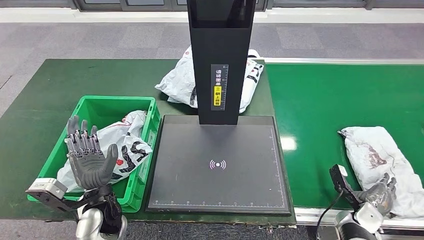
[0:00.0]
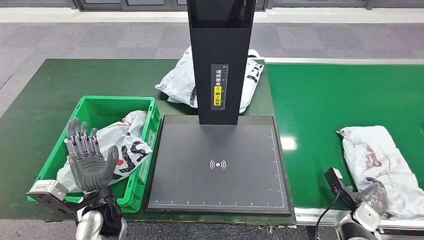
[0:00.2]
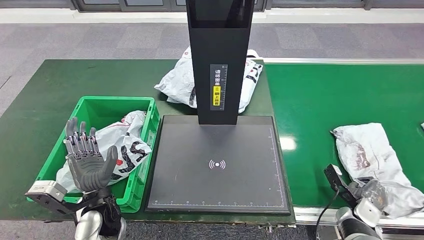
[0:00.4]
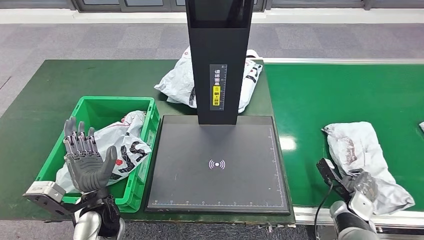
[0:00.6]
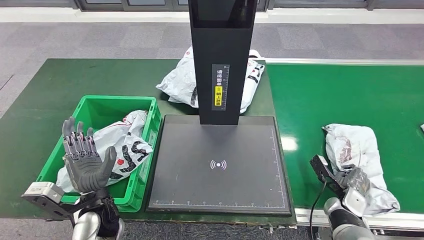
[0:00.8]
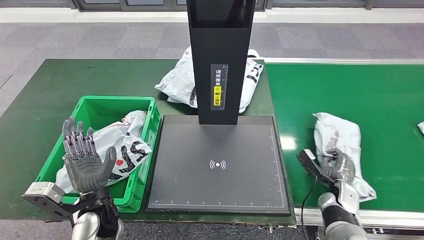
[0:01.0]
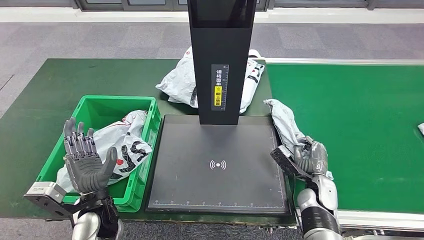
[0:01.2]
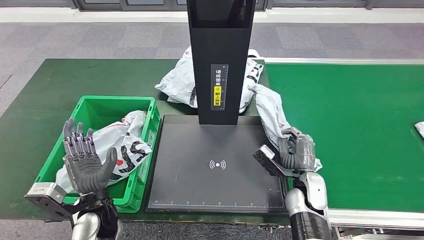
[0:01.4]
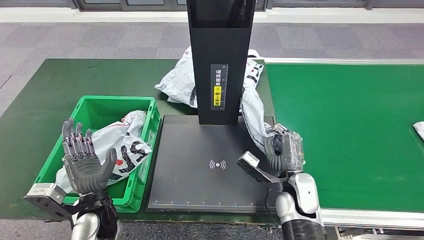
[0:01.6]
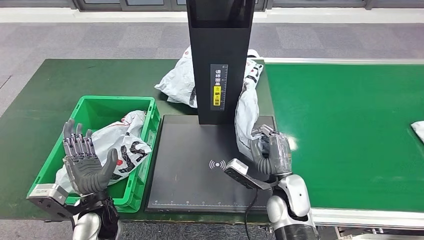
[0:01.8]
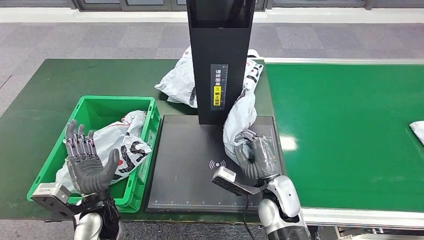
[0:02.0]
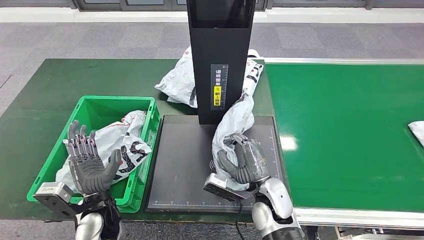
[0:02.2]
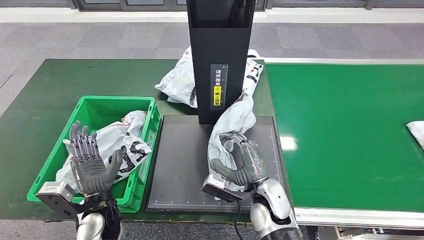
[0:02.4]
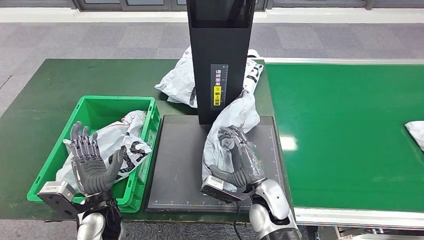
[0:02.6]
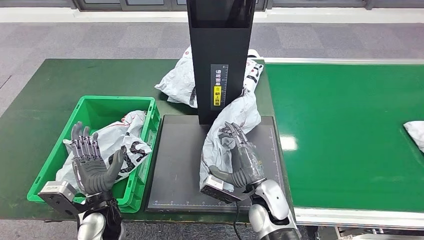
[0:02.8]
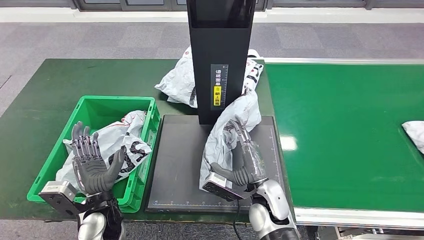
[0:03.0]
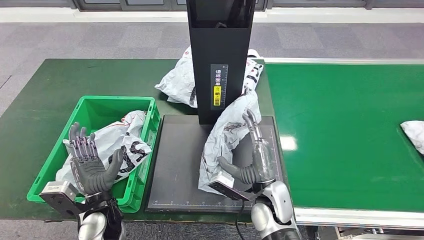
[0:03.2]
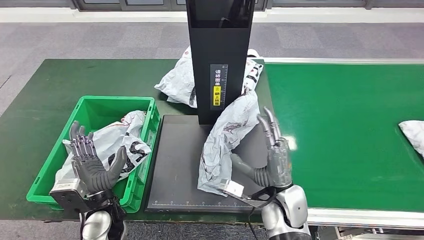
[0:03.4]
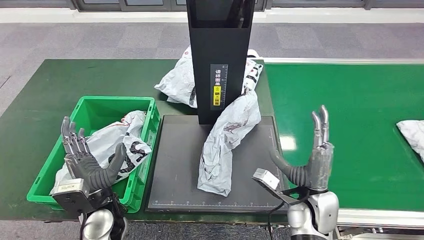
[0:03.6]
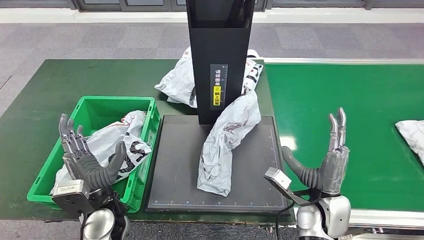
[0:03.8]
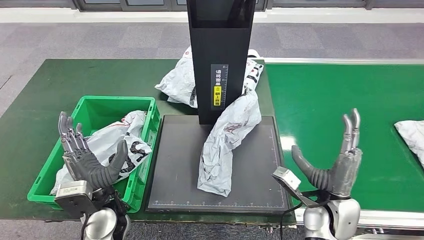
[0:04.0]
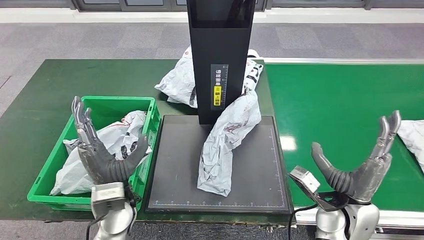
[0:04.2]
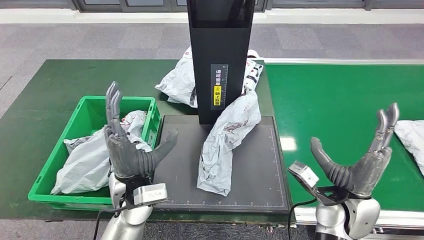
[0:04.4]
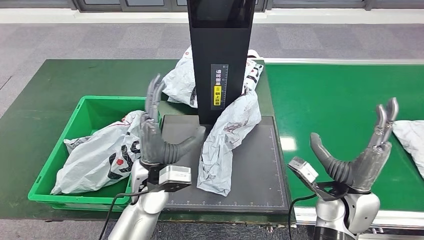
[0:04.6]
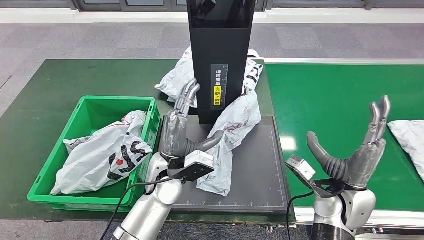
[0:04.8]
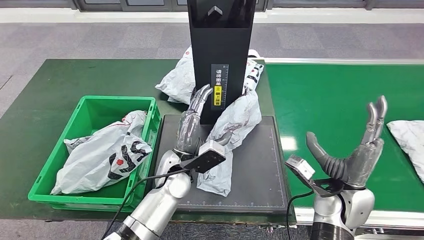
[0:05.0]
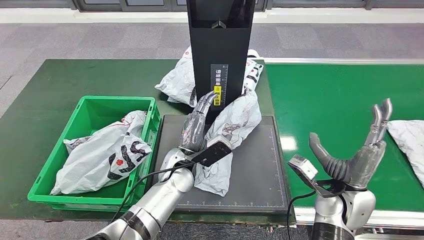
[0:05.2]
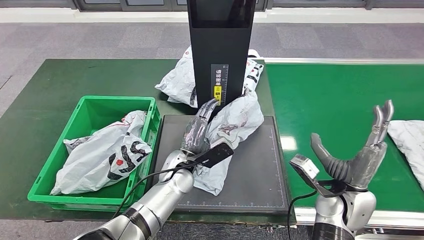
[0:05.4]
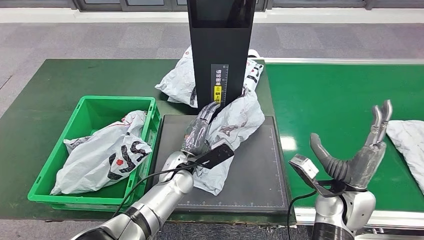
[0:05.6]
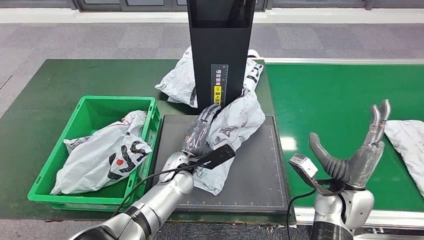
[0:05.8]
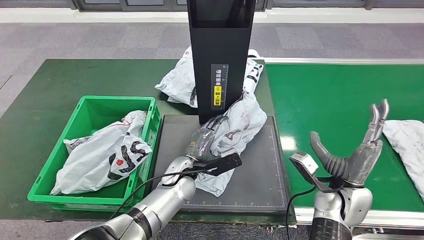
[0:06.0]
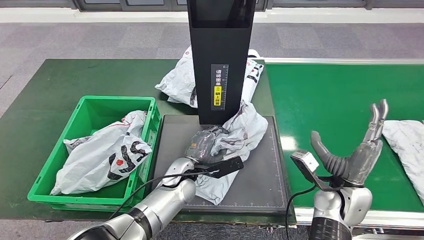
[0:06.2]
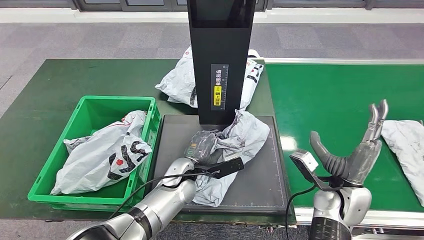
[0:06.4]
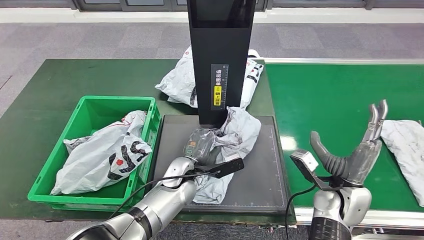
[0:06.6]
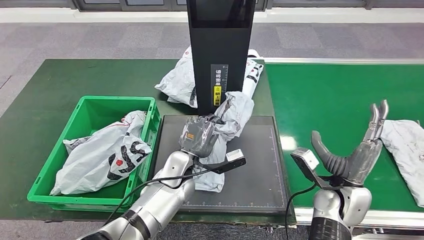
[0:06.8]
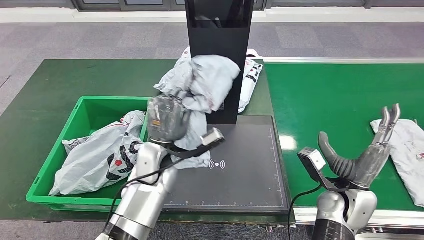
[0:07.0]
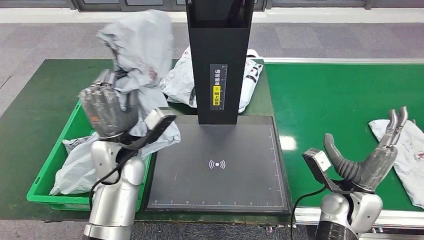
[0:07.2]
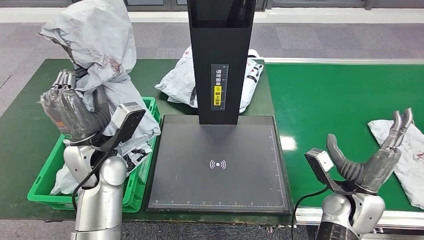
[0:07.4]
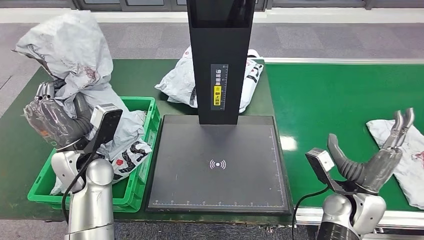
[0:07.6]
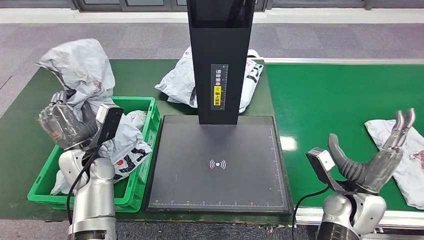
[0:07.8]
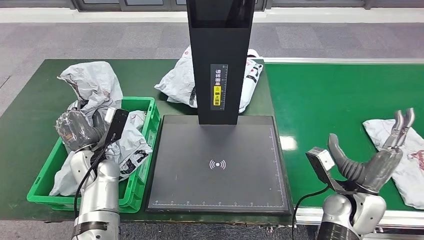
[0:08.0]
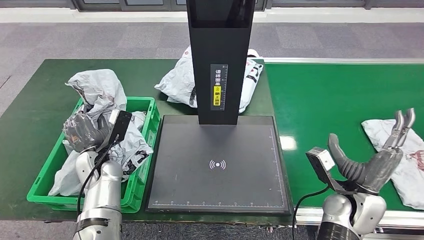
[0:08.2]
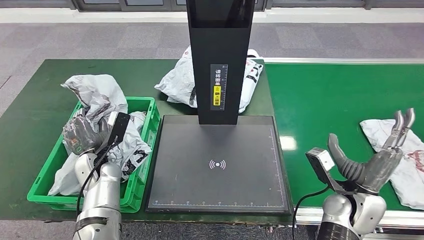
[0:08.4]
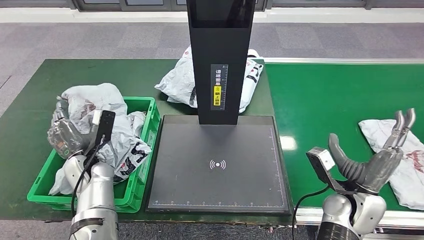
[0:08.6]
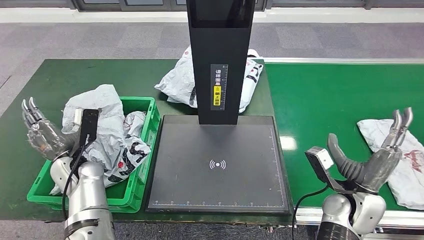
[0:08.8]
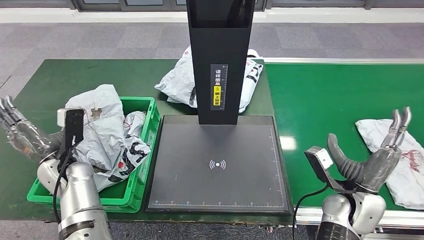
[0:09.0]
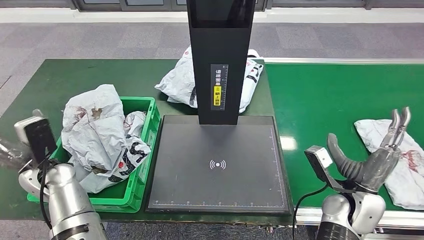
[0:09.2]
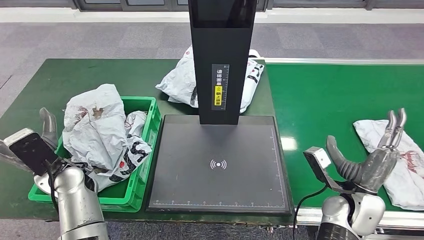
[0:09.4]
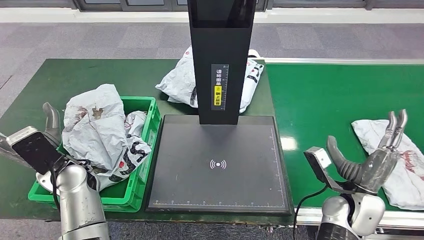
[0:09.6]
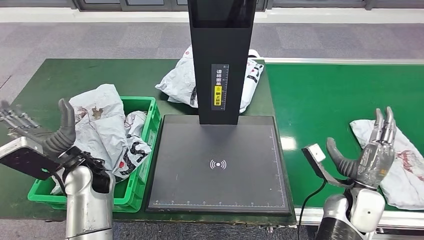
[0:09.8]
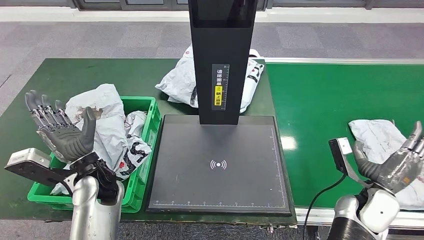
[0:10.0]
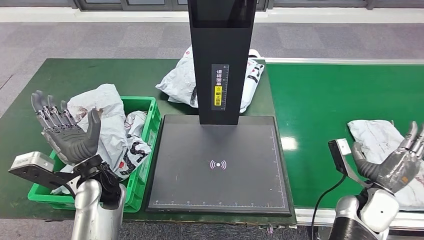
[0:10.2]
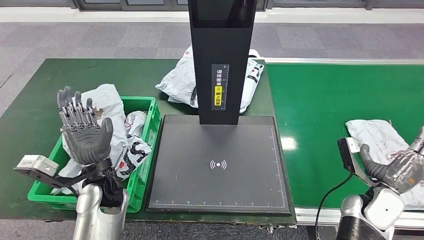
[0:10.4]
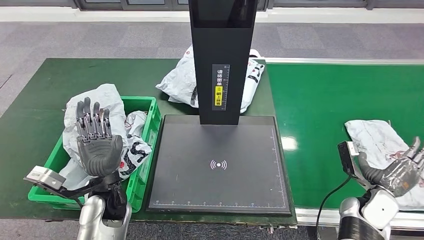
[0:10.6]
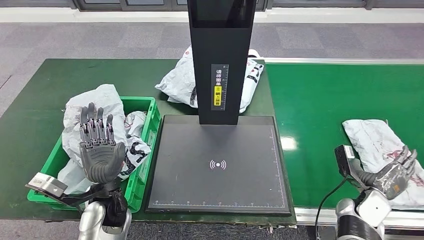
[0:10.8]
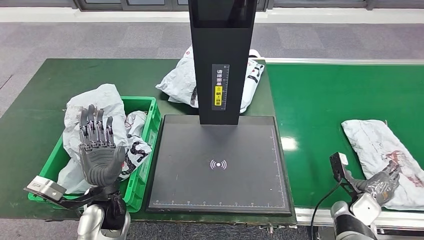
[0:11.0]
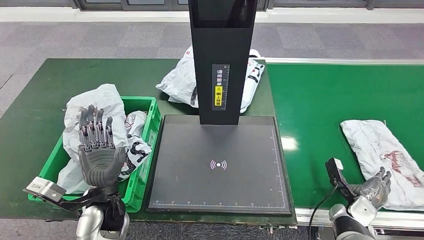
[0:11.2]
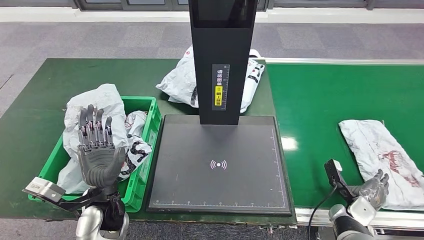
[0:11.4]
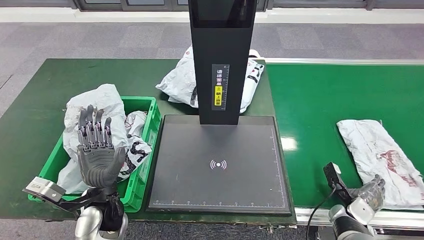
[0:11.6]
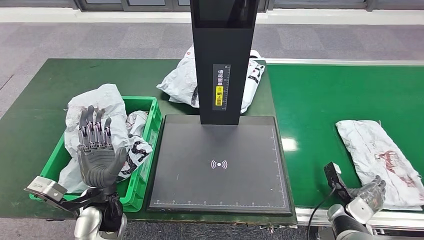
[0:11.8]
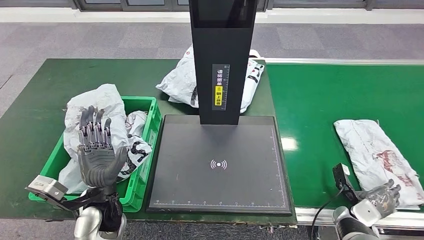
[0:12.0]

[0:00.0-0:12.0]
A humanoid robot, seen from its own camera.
Step, 0:00.0 to 0:01.6: Pick up the parcel from the conveyor belt.
Step, 0:01.8 to 0:04.0: Place the parcel onto the inbound machine.
Step, 0:04.2 to 0:07.4: Pick up the parcel from the inbound machine.
Step, 0:07.8 to 0:09.6: Place the parcel into the delivery box.
0:00.0 to 0:01.6: The right hand is displaced to the left and upward by roughly 25 cm.
0:01.6 to 0:03.0: The right hand travels to the left by some 10 cm.
0:04.4 to 0:06.0: The left hand goes about 15 cm downward, to the right and forward.
0:07.6 to 0:09.0: The left hand moves to the left and downward, roughly 10 cm.
0:10.4 to 0:12.0: The left hand shifts by roughly 5 cm. The right hand heads downward, covering roughly 10 cm.

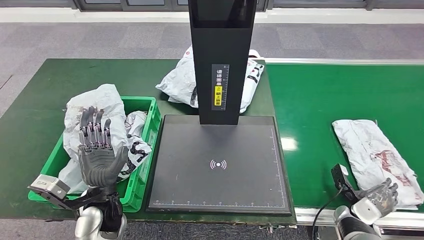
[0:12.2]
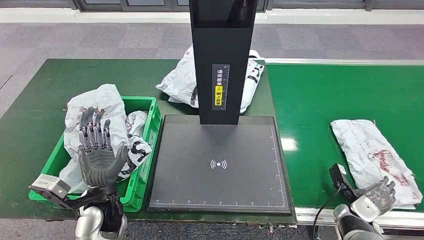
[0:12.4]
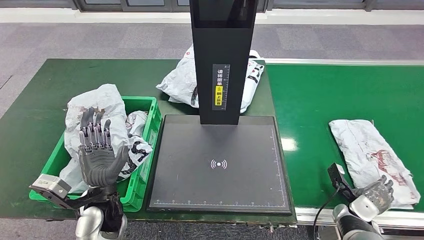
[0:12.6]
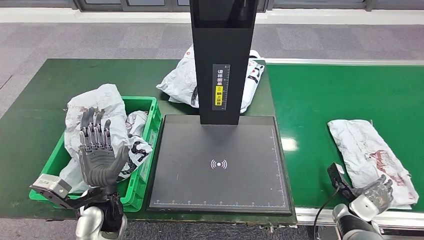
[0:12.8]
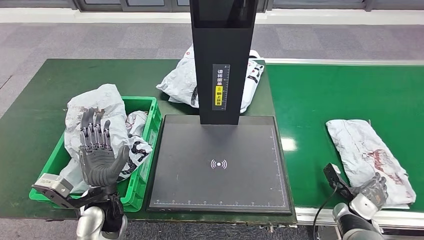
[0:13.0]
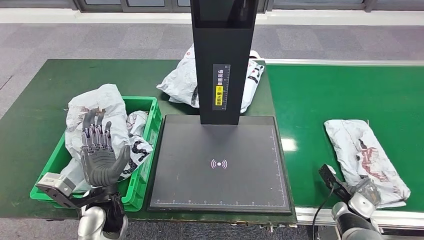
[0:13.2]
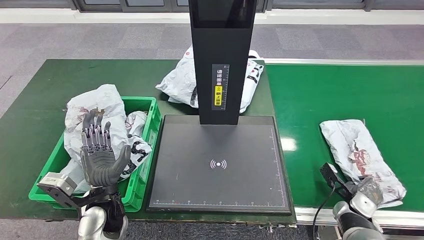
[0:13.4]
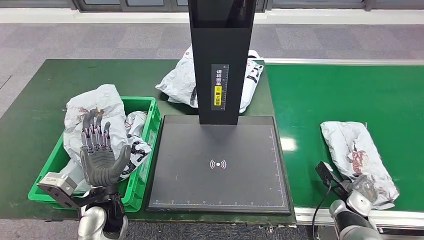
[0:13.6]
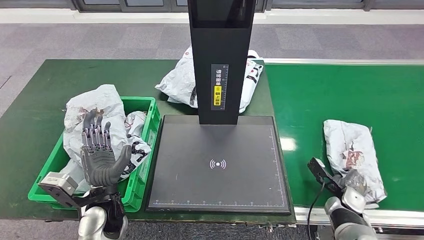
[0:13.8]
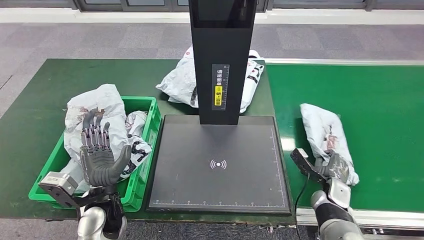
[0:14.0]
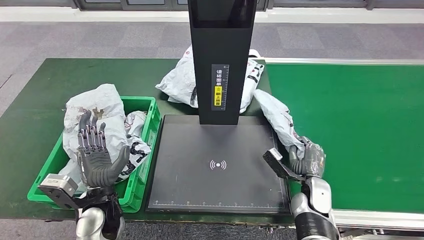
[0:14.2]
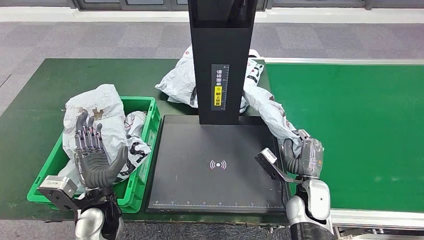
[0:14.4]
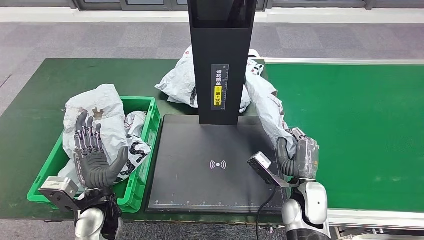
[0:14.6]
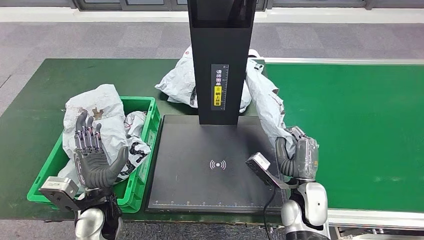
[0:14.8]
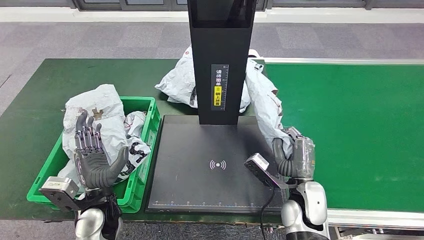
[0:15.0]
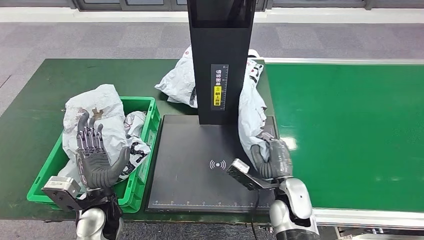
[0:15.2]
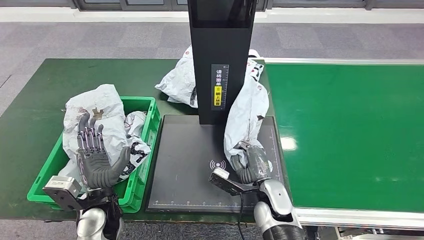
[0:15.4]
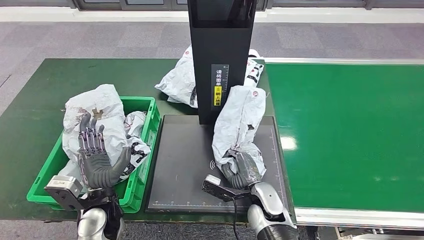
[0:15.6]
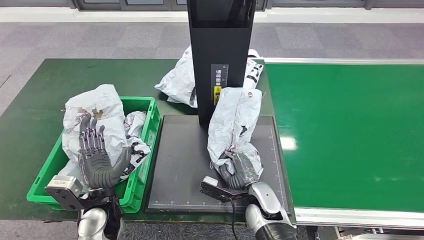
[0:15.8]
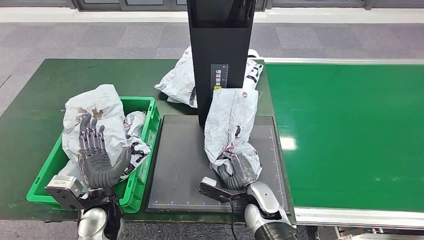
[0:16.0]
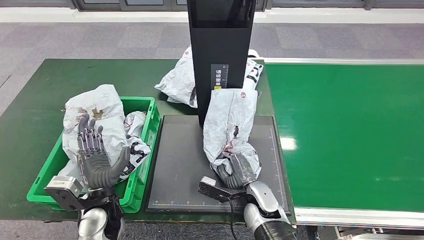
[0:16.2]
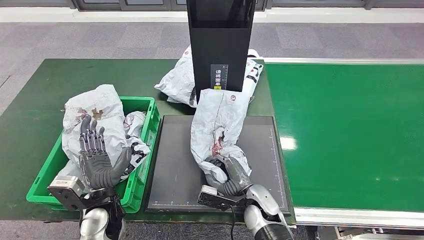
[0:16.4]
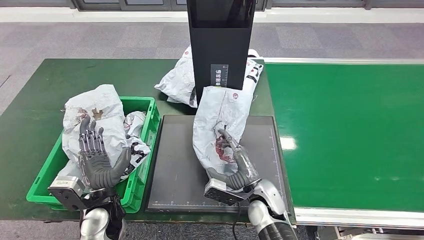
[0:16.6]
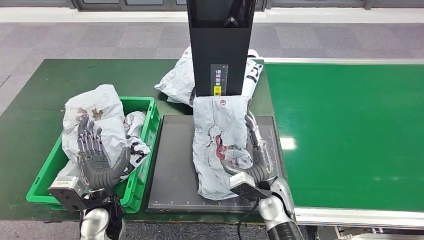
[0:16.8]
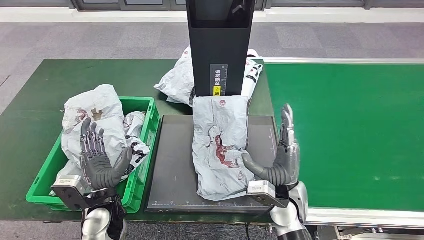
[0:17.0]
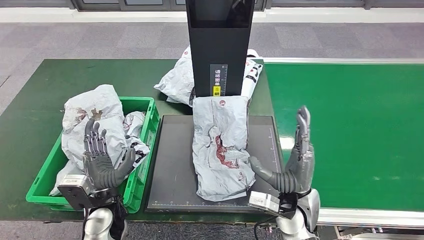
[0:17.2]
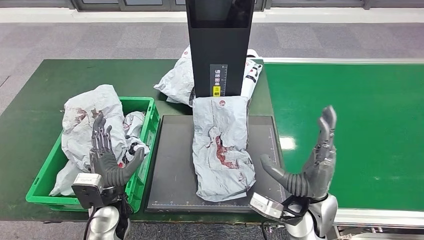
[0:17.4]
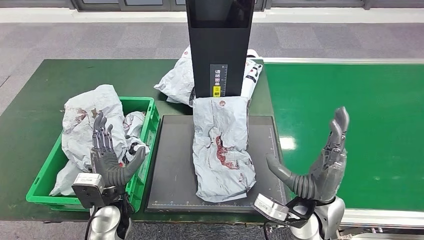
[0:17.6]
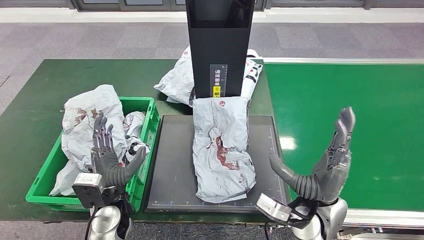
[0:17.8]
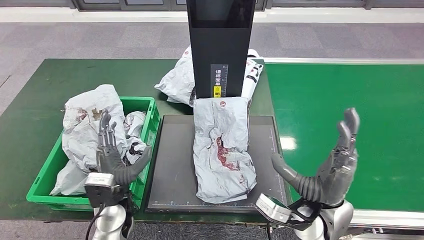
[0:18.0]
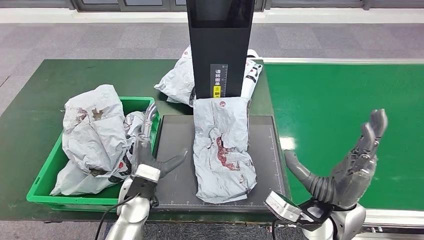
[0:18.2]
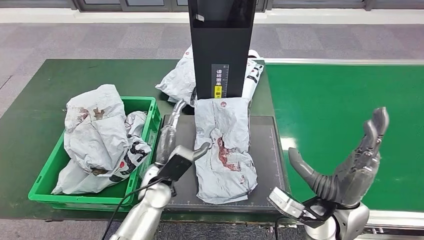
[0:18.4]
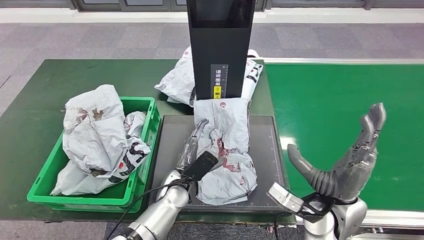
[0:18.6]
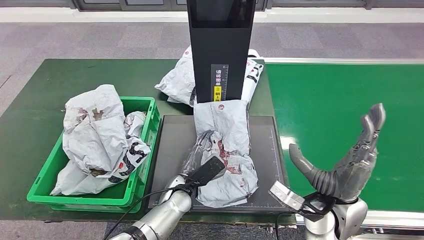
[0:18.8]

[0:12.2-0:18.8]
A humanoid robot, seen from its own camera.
Step, 0:12.2 to 0:14.6: Pick up the parcel from the conveyor belt.
Step, 0:14.8 to 0:18.0: Place the parcel onto the inbound machine.
0:13.8 to 0:15.4: The right hand shifts roughly 25 cm to the left.
0:15.4 to 0:17.2: The right hand shifts some 5 cm upward.
0:17.2 to 0:18.8: The right hand travels upward and to the right by approximately 10 cm; the left hand shifts about 15 cm to the right.
